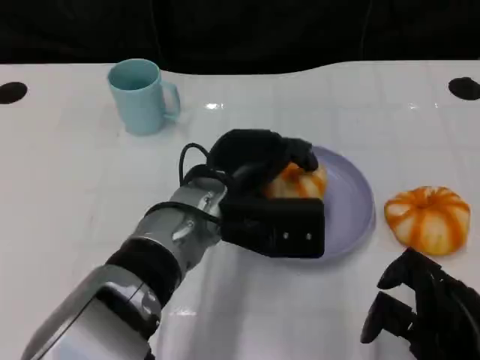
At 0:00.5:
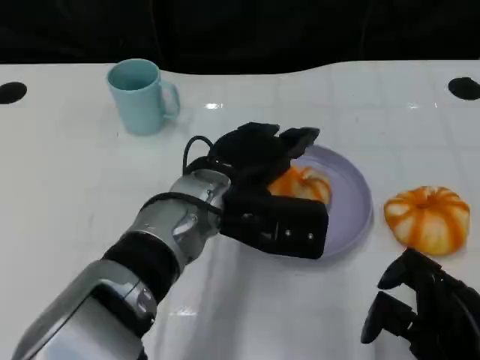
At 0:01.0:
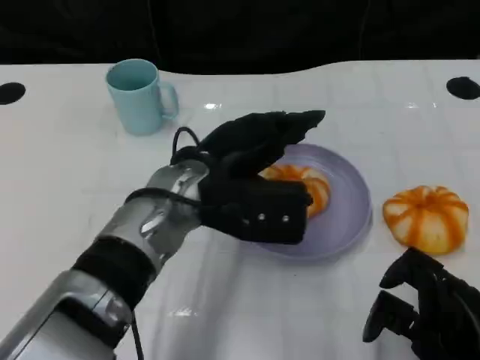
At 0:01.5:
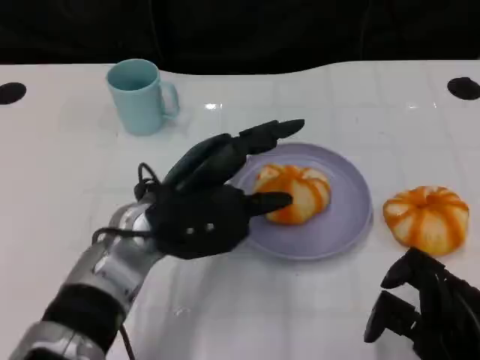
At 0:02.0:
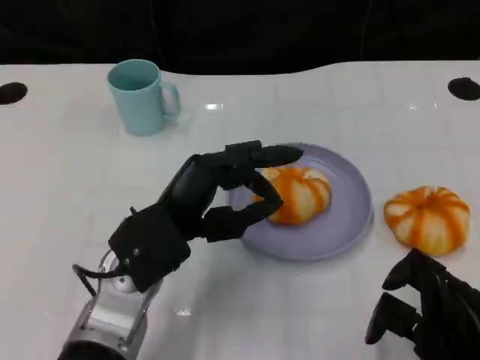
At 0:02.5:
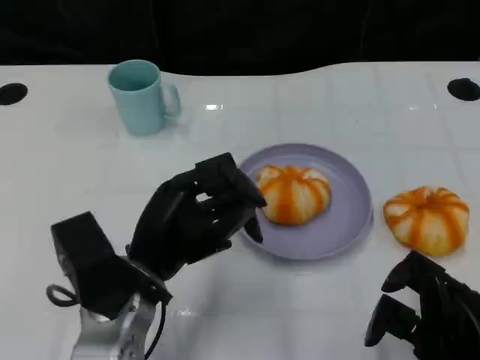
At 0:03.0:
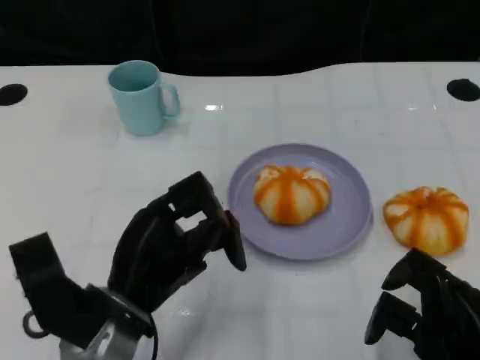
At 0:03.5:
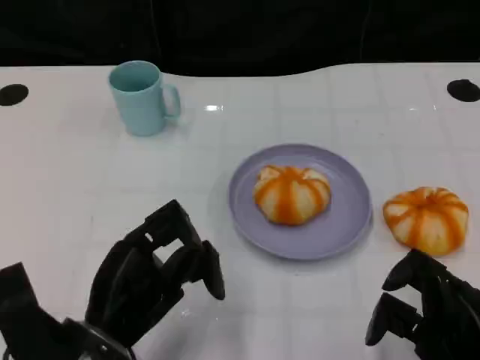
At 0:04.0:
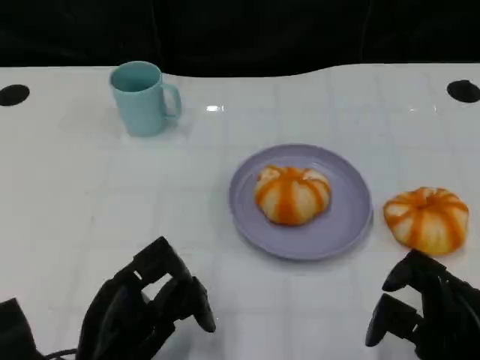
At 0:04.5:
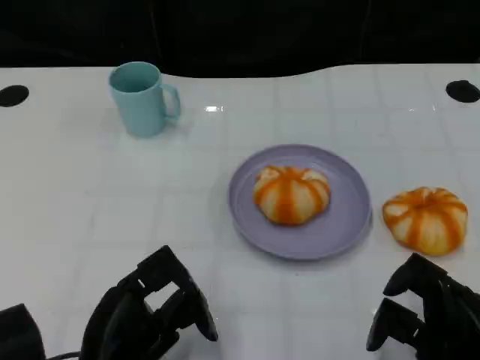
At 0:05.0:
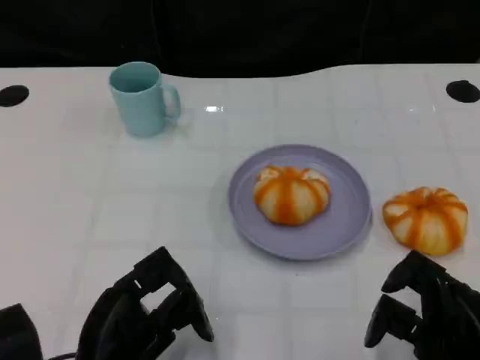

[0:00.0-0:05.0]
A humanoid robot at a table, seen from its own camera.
Task of the whole recording: Grasp the bread from the table and place it into the plate.
0:00.0 to 0:02.5: The left hand goes about 10 cm to the left and backward.
0:02.5 to 0:05.0: The left hand is displaced backward by some 10 cm.

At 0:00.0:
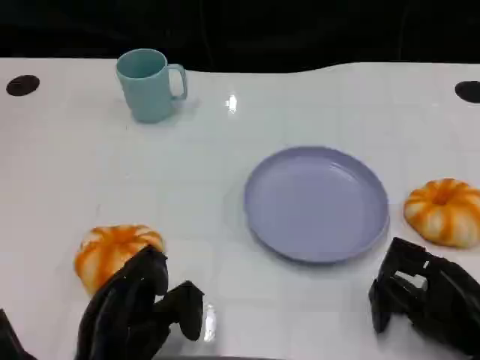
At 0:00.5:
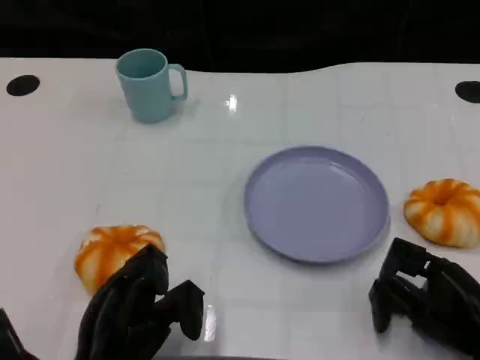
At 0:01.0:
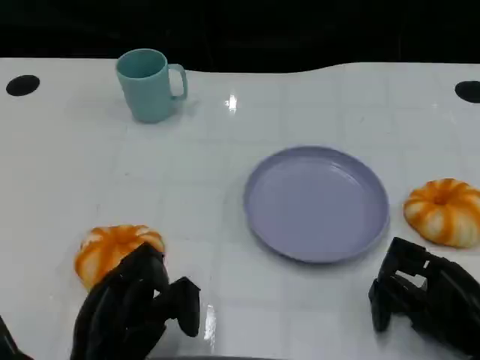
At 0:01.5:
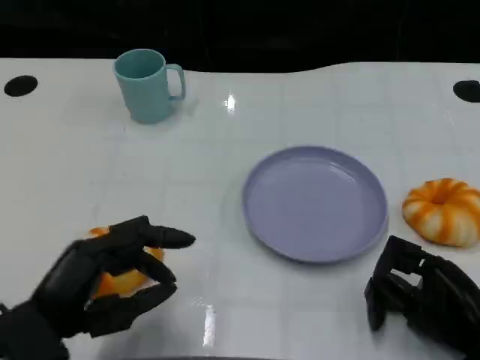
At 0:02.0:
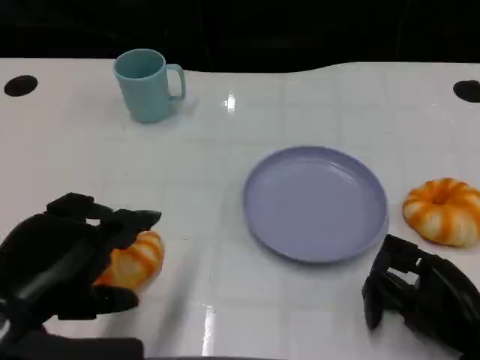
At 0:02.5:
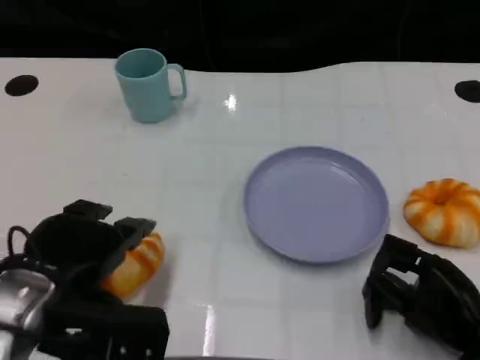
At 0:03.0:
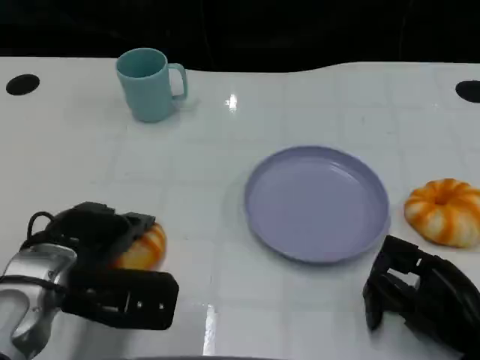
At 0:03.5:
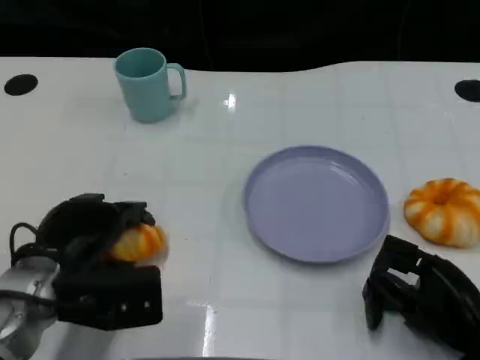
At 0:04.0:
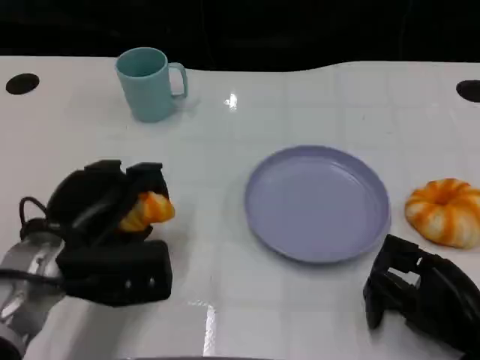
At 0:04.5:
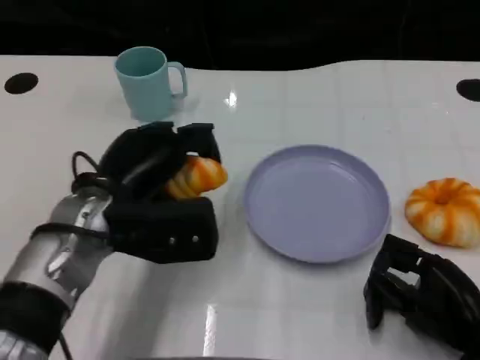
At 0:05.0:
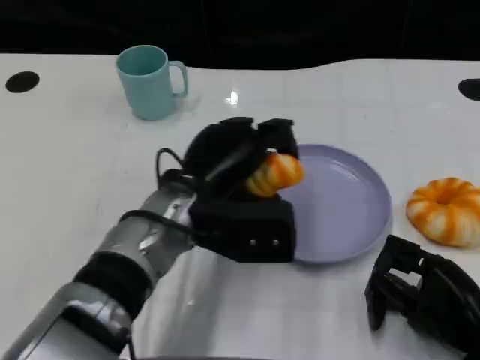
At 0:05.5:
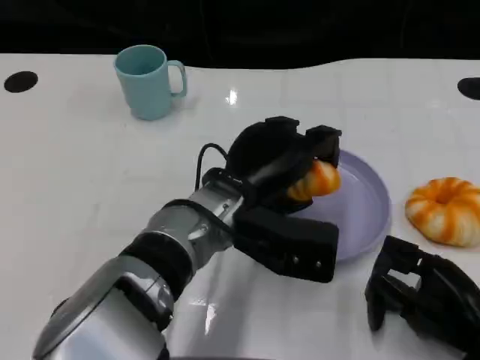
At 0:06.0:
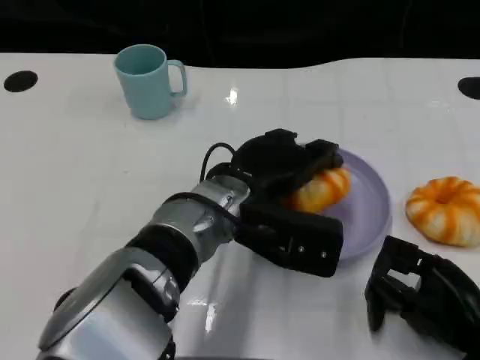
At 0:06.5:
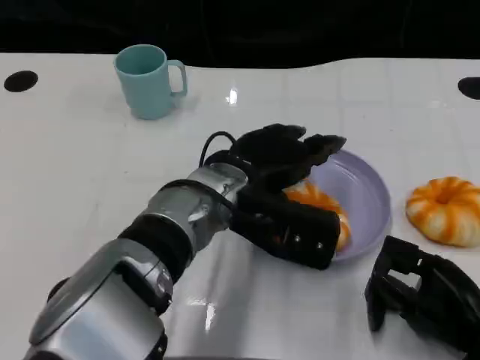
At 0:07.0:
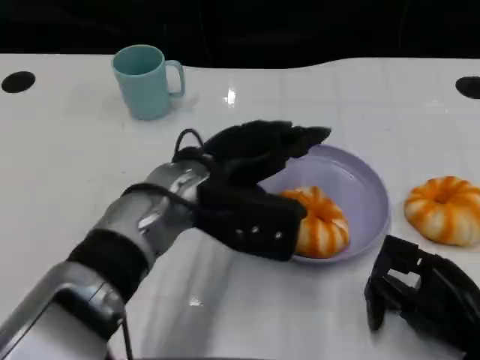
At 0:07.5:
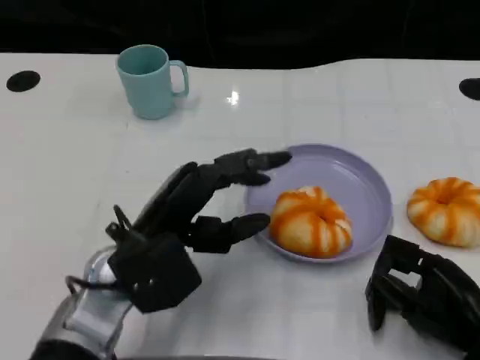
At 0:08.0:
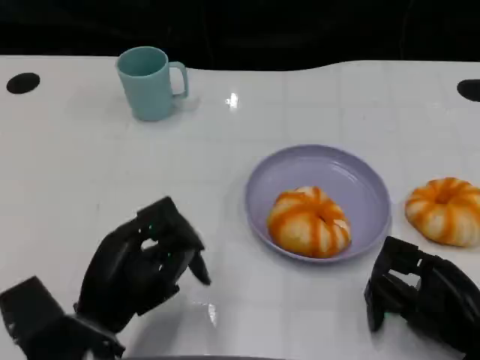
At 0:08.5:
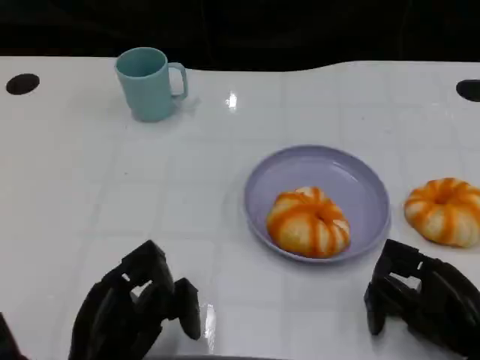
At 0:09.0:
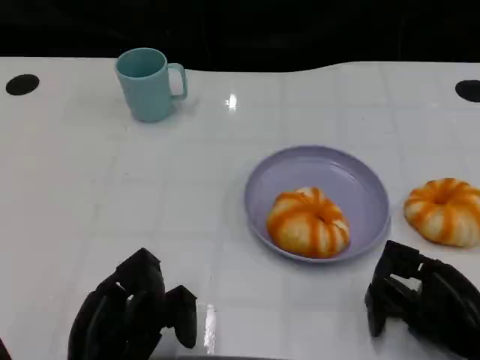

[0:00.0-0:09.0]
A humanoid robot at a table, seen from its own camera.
Task of the whole recording: Grasp the bread from the table and place it into the plate.
0:00.0 to 0:02.0: The left hand goes roughly 15 cm upward.
0:02.0 to 0:04.5: The left hand moves forward and to the right, approximately 15 cm.
0:04.5 to 0:07.0: The left hand is displaced to the right by roughly 5 cm.
0:07.0 to 0:09.0: The left hand travels backward, downward and to the left by about 20 cm.

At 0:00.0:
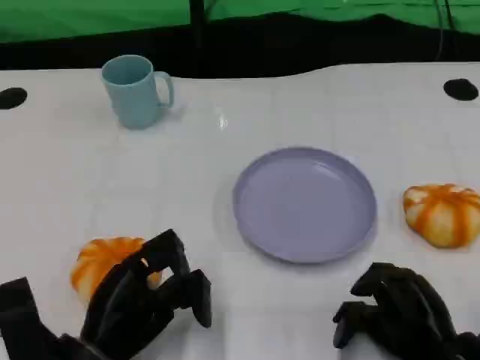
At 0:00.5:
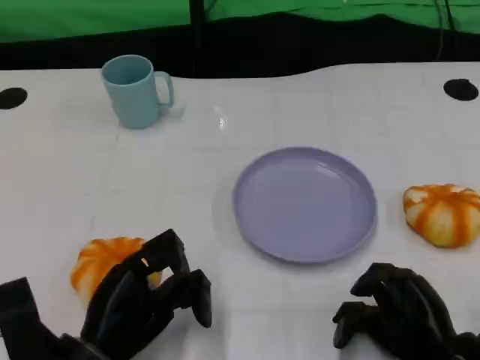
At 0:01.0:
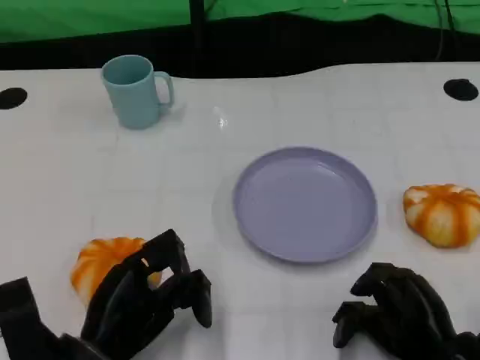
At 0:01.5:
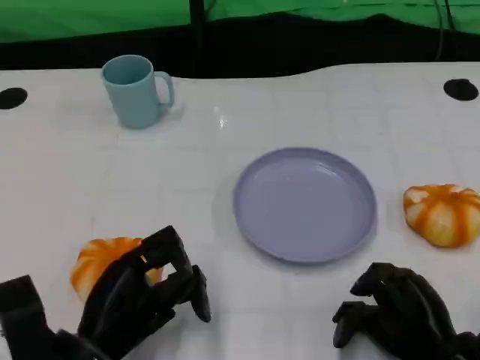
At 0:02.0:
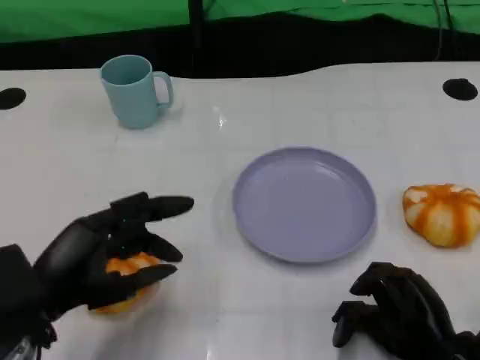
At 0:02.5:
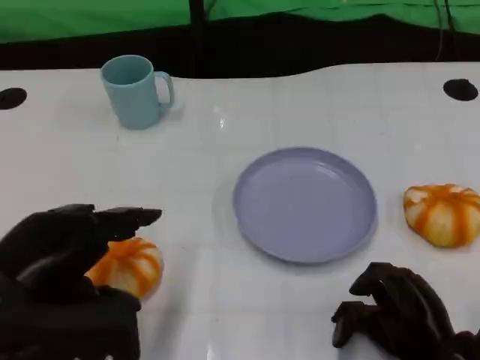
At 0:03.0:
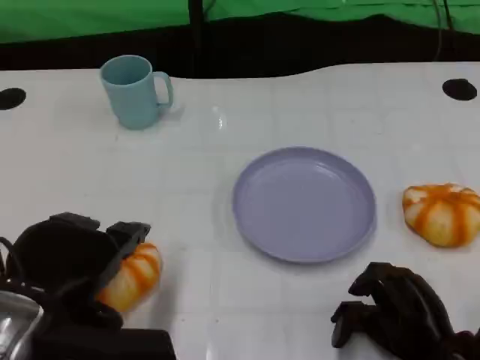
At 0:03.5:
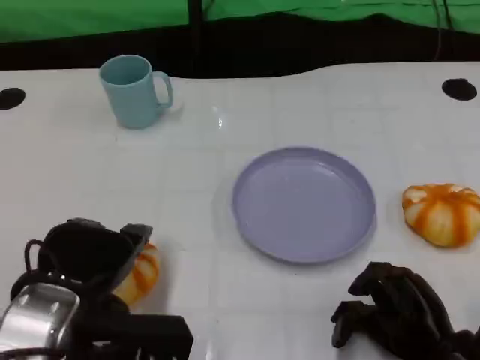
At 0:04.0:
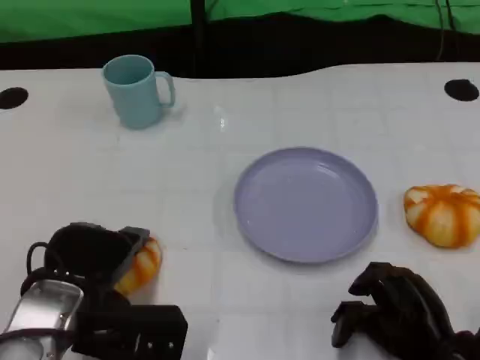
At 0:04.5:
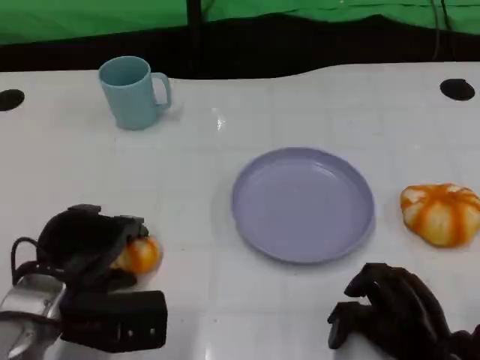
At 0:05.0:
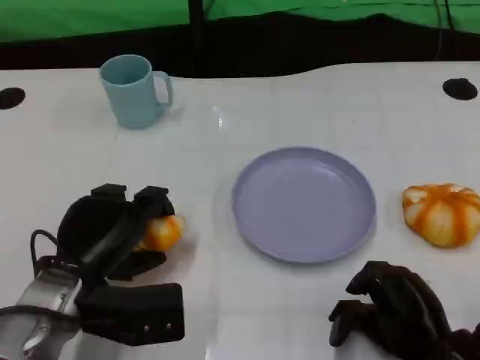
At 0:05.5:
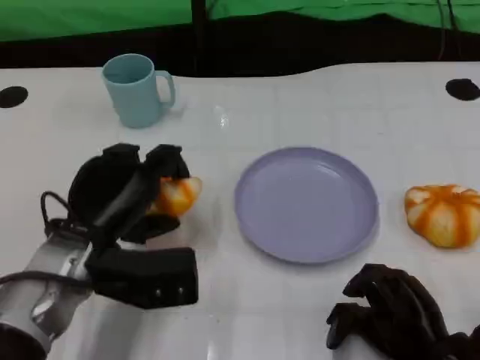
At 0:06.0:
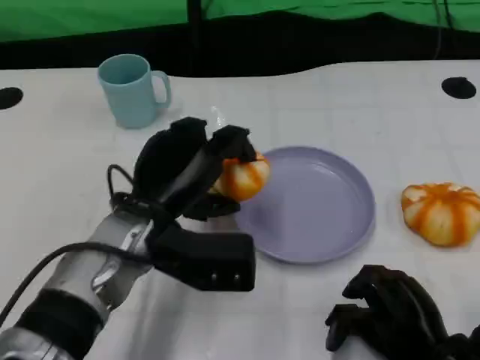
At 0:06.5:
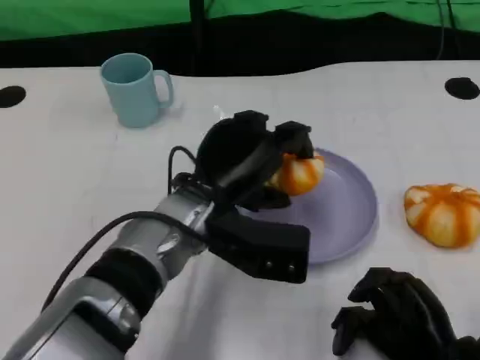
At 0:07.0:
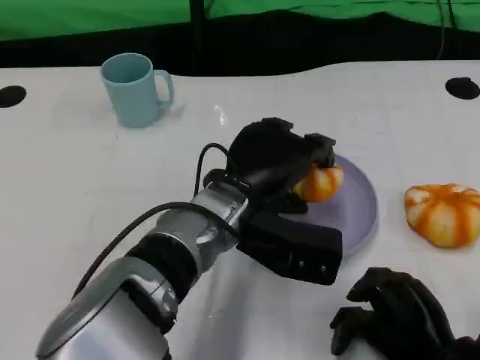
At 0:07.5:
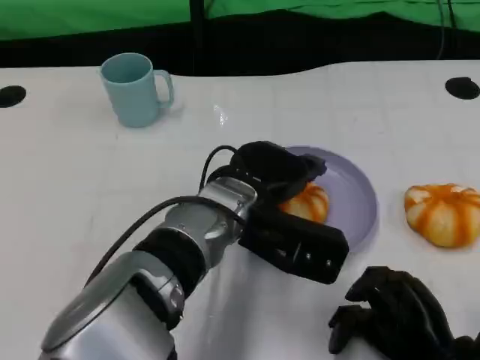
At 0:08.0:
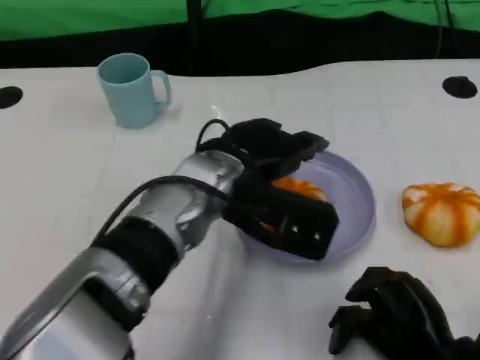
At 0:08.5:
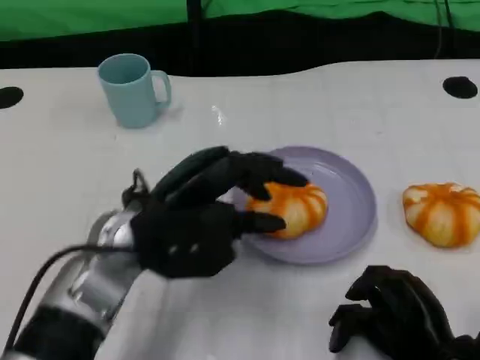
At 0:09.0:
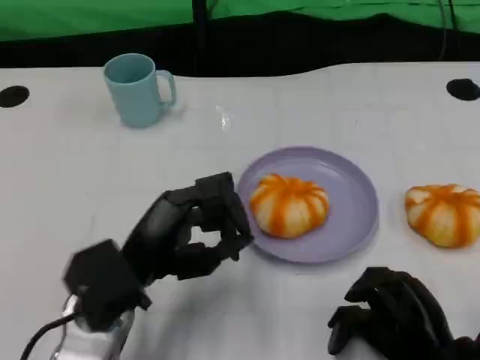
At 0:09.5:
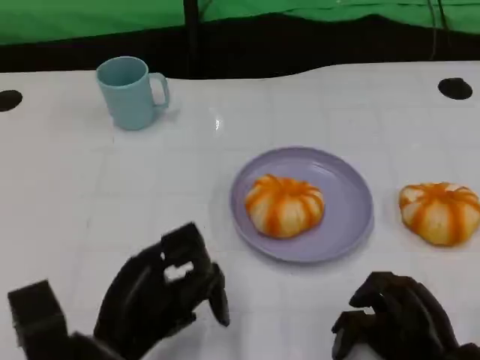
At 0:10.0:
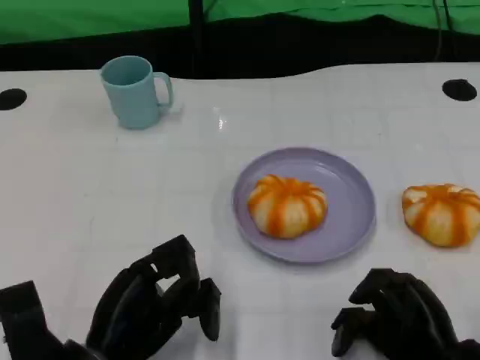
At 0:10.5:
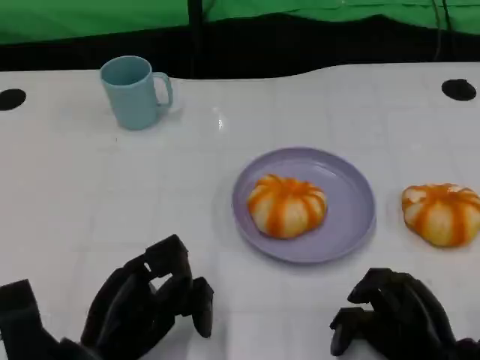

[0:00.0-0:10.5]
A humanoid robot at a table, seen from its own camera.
Task of the whole recording: Grasp the bread from the table and place it into the plate.
0:00.0 to 0:02.0: The left hand travels upward by some 10 cm.
0:02.0 to 0:04.0: The left hand moves some 5 cm.
0:04.0 to 0:06.5: The left hand travels to the right and forward by roughly 15 cm.
0:06.5 to 0:08.5: The left hand heads to the left, covering some 5 cm.
0:08.5 to 0:10.5: The left hand travels backward, downward and to the left by about 15 cm.

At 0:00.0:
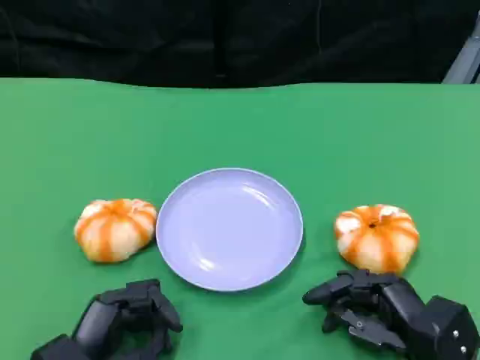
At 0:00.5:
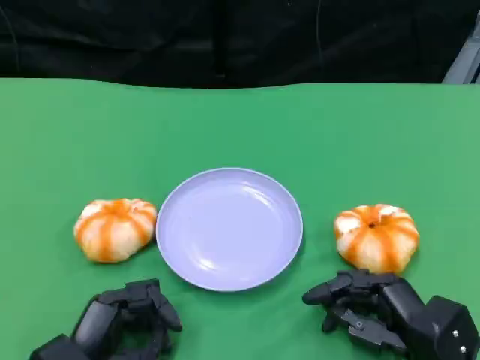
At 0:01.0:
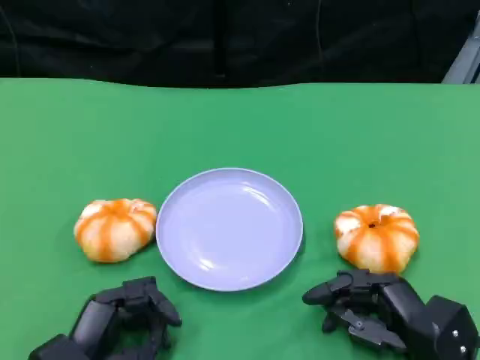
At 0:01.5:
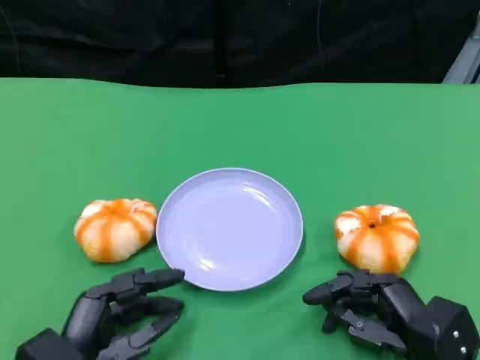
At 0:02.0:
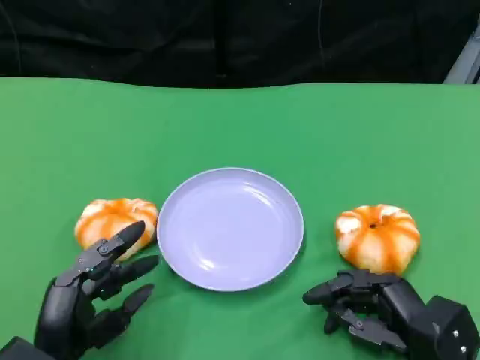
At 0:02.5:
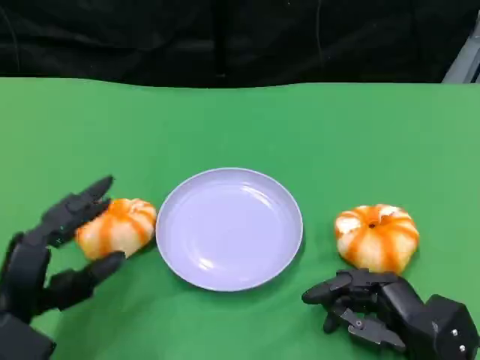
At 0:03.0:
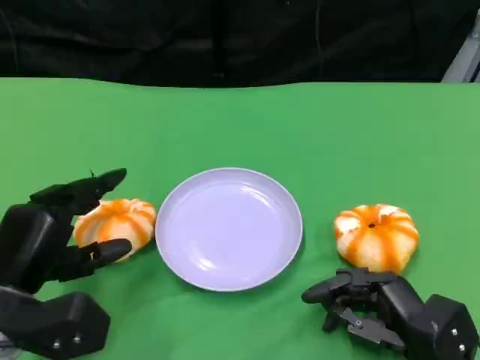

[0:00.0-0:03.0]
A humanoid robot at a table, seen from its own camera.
Task of the whole recording: Grasp the bread from the table and place it into the plate.
0:00.0 to 0:01.5: The hands stay close to where they were, moving slightly.
0:01.5 to 0:03.0: The left hand travels forward and upward by about 10 cm.
